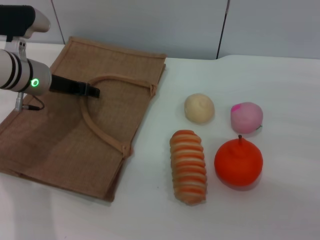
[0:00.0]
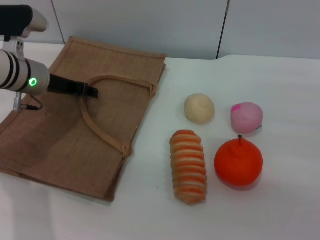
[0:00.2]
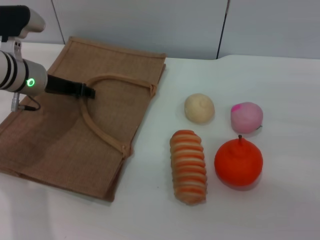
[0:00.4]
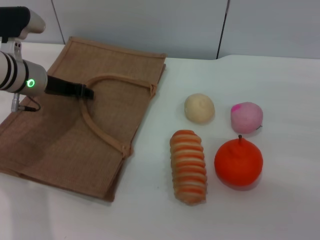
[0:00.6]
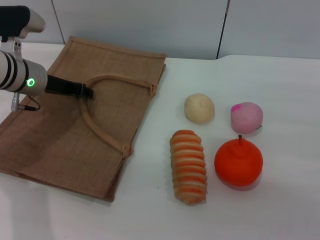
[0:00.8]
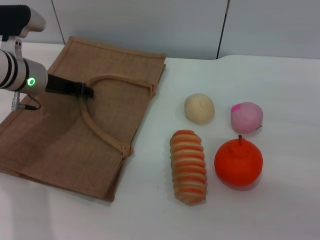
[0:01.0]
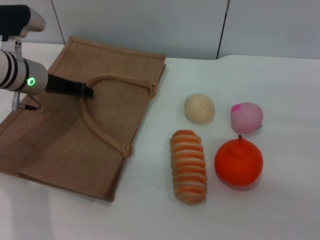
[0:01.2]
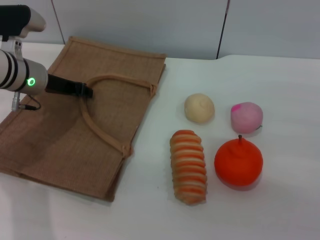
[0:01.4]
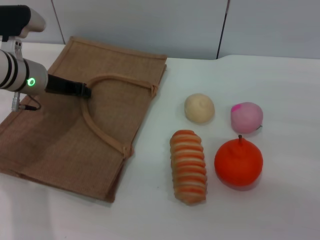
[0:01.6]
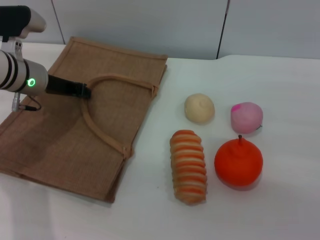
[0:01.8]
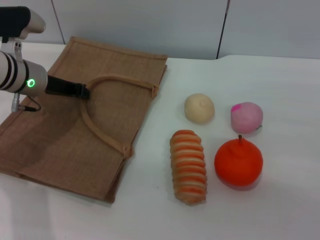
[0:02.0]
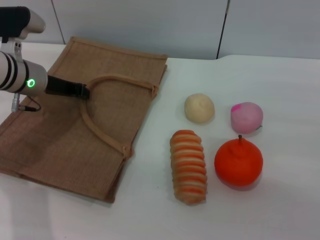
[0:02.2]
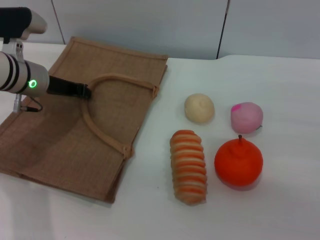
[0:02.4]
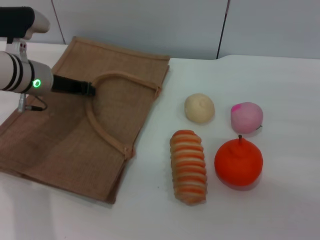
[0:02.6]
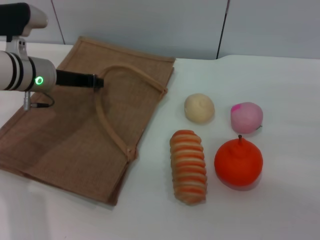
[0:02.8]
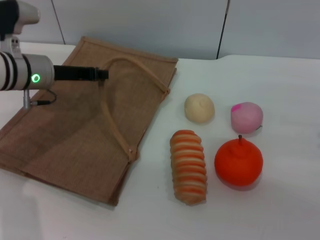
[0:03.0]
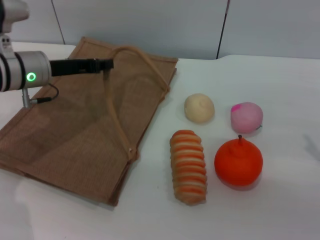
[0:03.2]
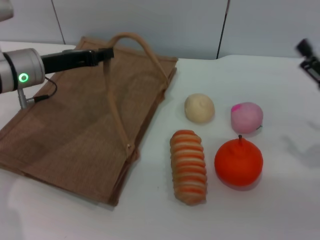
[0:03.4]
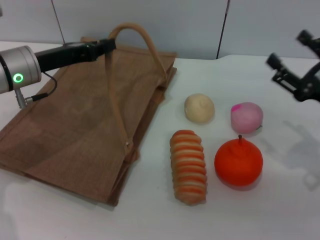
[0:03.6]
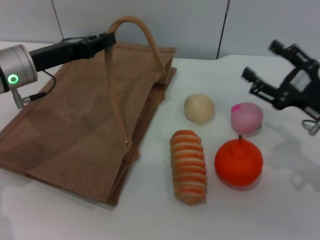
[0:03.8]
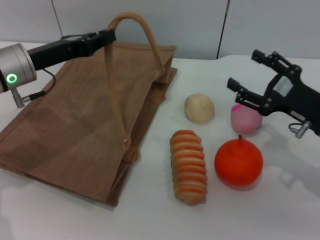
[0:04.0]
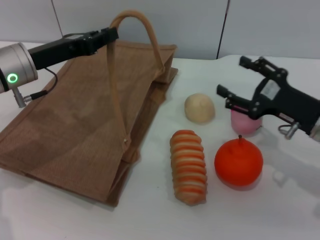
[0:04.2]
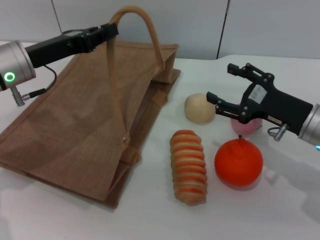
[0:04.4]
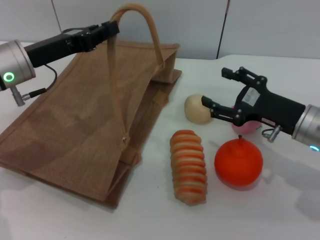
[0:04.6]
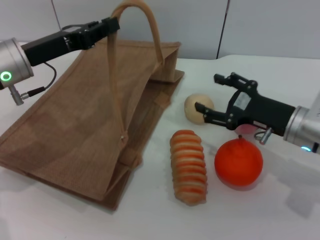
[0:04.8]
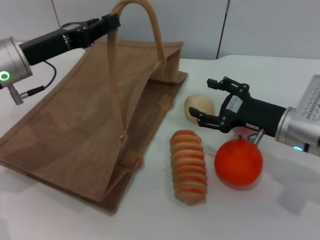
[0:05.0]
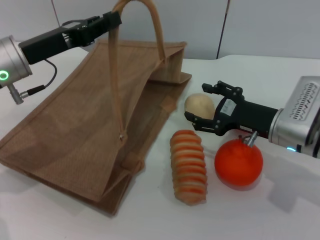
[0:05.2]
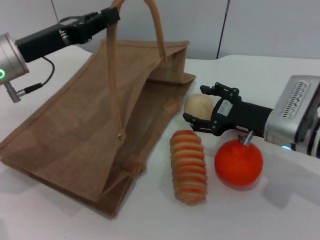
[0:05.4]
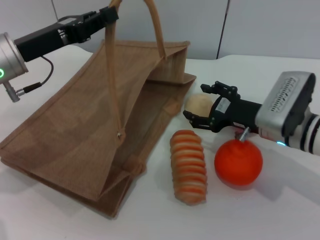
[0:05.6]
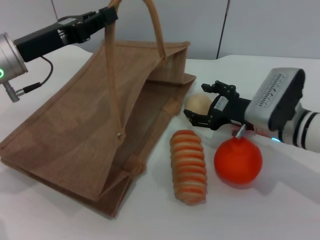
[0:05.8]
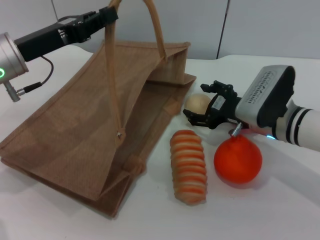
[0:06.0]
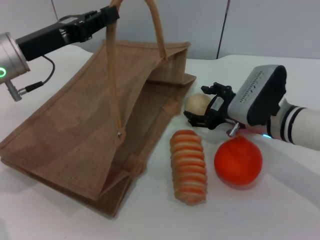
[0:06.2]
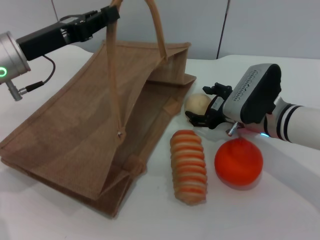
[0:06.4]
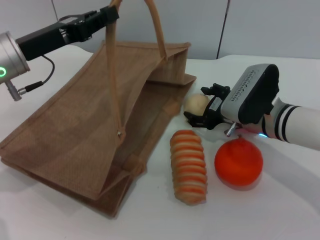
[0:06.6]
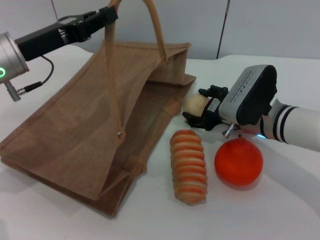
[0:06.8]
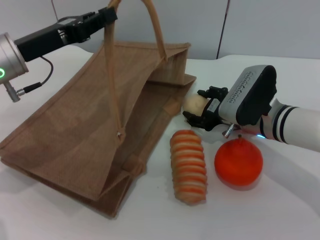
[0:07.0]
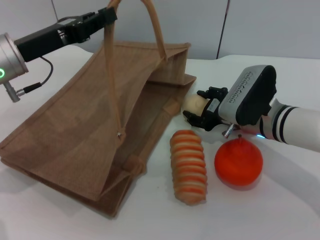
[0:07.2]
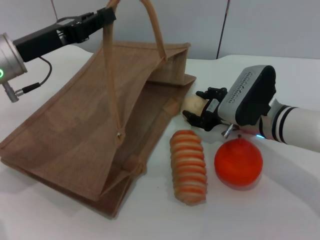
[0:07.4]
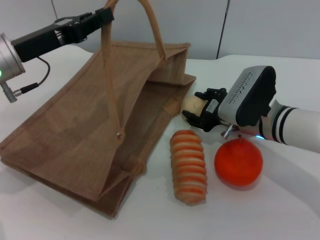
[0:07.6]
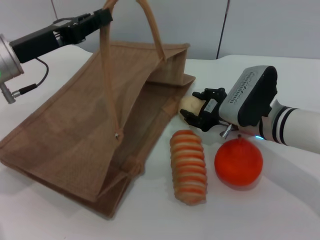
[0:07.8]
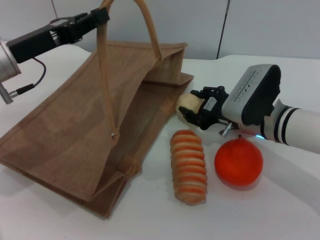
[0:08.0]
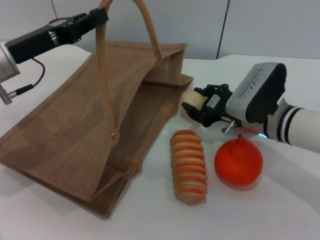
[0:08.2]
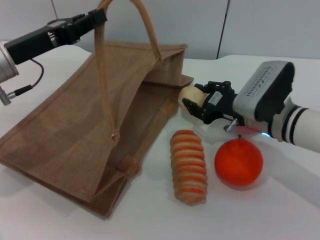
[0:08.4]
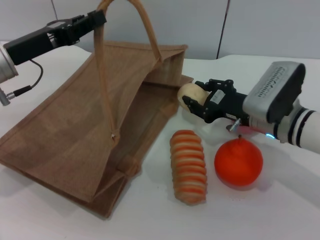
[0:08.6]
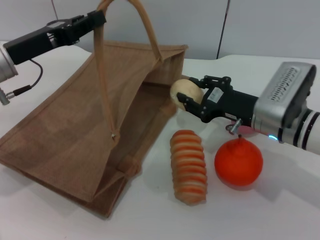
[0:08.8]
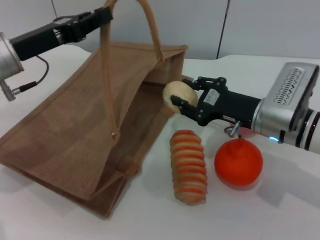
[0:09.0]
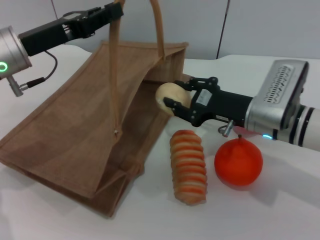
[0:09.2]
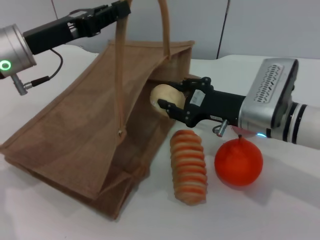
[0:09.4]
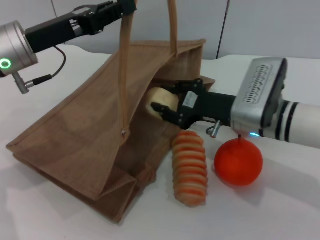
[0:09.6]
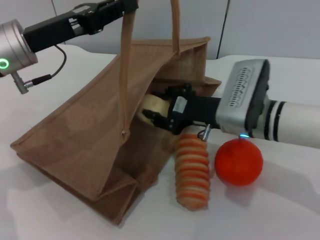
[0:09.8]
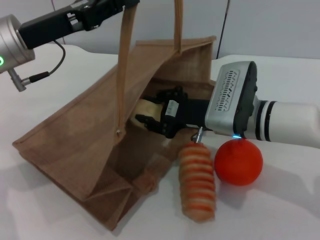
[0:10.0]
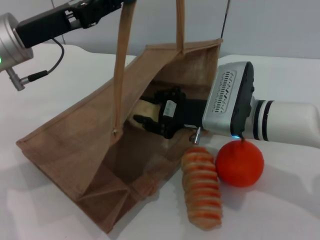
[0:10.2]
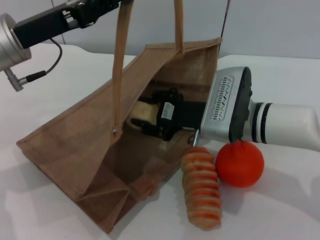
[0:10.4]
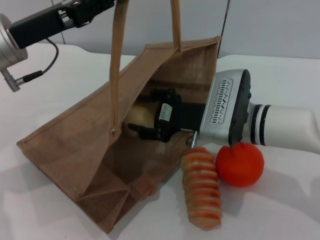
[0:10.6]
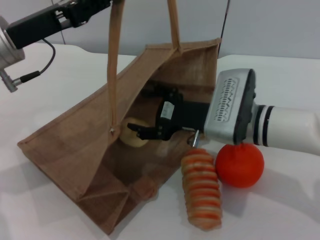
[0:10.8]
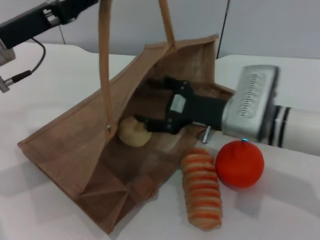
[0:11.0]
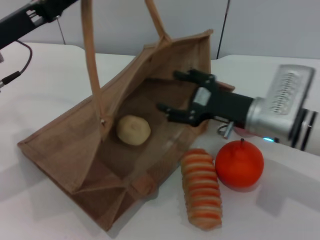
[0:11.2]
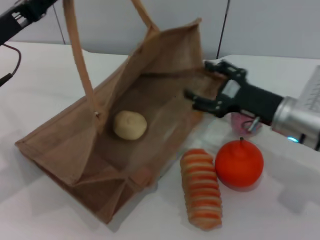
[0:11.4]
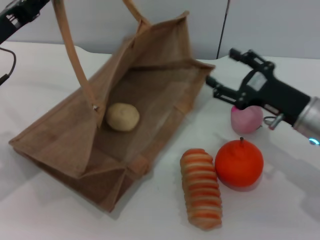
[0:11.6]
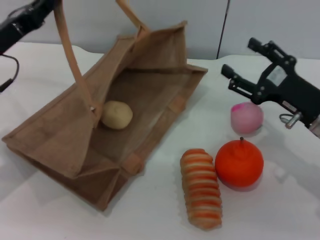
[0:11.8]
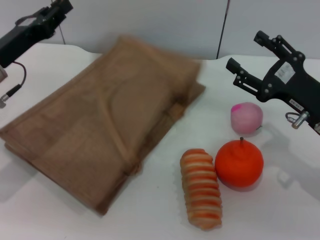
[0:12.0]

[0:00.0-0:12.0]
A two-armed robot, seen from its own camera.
Task of the whole recording: pick up the egg yolk pastry from the table and place it in the brown handbag.
Step, 0:00.0 to 0:03.2: Lift the woven bag with the left gripper to open it.
Step, 0:03.4 to 0:08.4: Pick up the egg yolk pastry with the right gripper.
Step, 0:08.8 to 0:11.0: Place the egg yolk pastry into the woven bag with the right gripper.
0:00.0 to 0:01.6: The left gripper closes its fingers.
0:01.6 to 0:03.0: The grippers make only small movements.
0:03.0 to 0:04.4: The left gripper shifts by approximately 5 cm. The right gripper is displaced to the left and forward by some 10 cm.
0:04.4 to 0:06.0: The right gripper shifts approximately 5 cm to the left.
0:06.0 to 0:07.6: The right gripper closes up.
0:07.6 to 0:09.0: The right gripper closes up.
0:09.0 to 0:10.4: The right gripper shifts about 5 cm to the left.
0:10.4 to 0:12.0: The left gripper moves downward, some 5 cm. Meanwhile the right gripper is displaced to the right by roughly 15 cm, and opens its fingers.

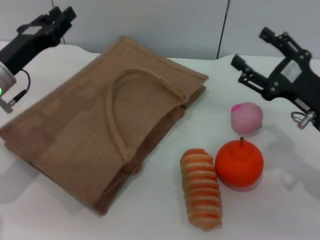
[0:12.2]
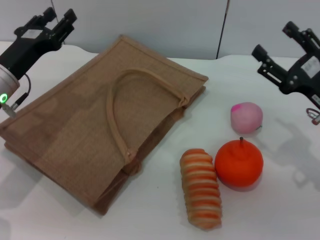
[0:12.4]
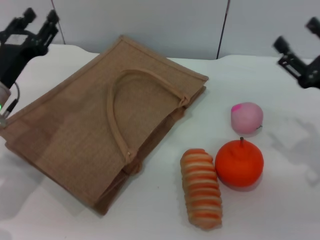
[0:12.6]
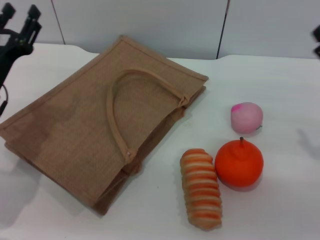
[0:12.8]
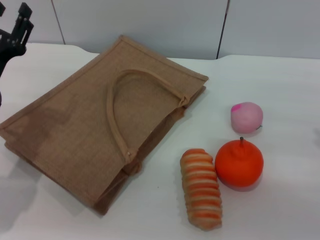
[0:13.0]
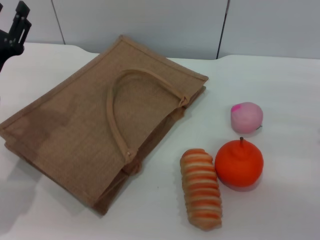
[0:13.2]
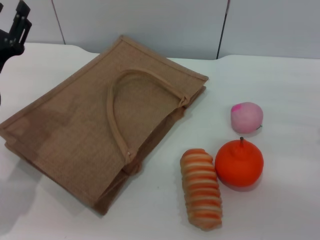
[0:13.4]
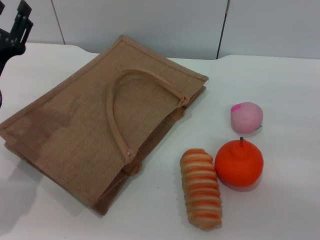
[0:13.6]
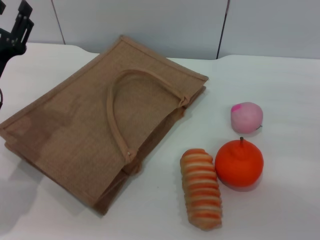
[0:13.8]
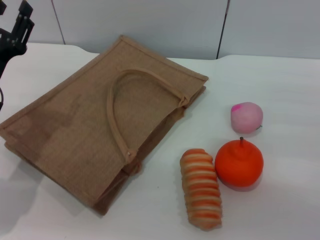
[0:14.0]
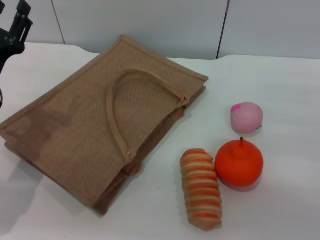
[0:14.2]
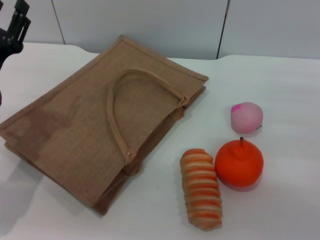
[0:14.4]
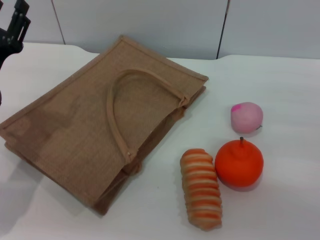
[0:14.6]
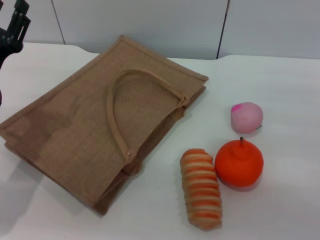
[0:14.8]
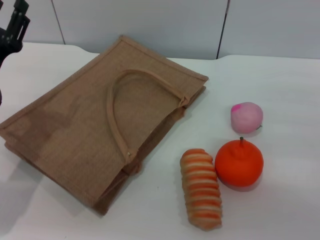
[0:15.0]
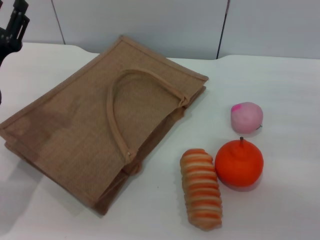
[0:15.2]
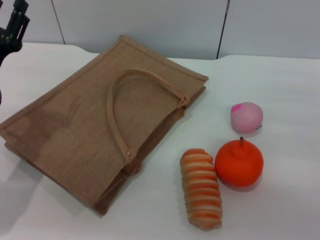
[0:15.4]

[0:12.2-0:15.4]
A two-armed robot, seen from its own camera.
Task of the whole recording: pick up the egg yolk pastry from the table and place it in the brown handbag.
0:12.2 to 0:13.8: The left gripper shifts approximately 5 cm backward, and opens, while the right gripper is displaced to the right by roughly 10 cm.
0:13.8 to 0:15.4: Both grippers stay about where they are.

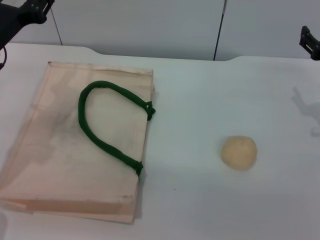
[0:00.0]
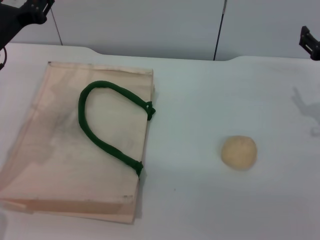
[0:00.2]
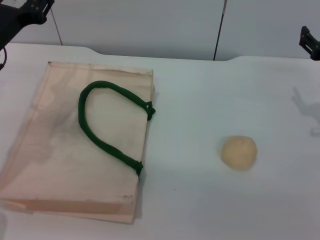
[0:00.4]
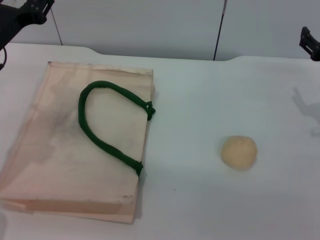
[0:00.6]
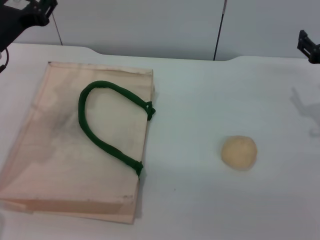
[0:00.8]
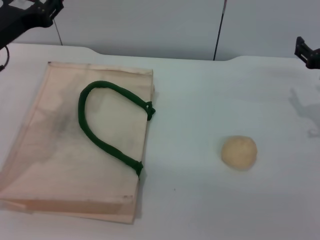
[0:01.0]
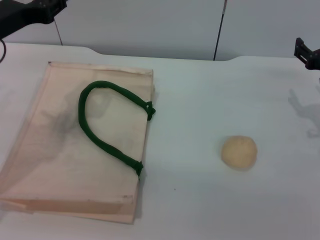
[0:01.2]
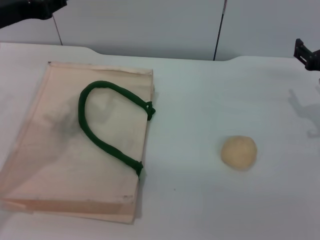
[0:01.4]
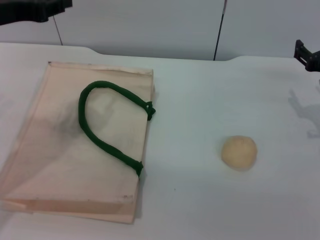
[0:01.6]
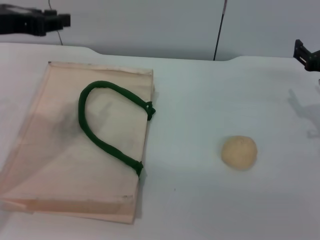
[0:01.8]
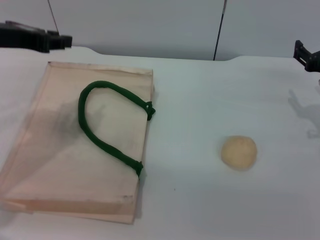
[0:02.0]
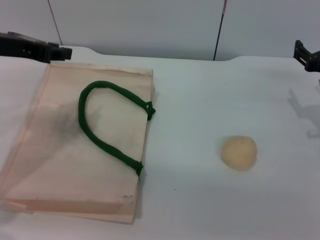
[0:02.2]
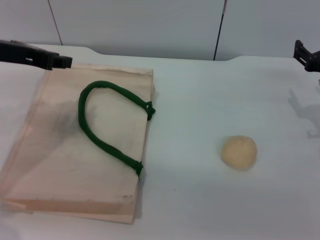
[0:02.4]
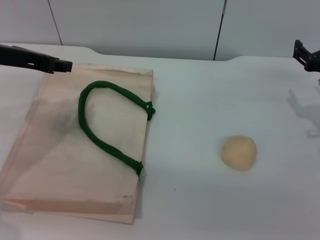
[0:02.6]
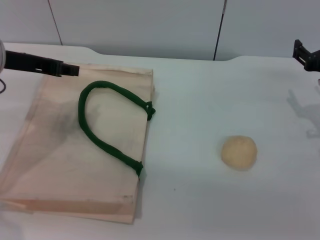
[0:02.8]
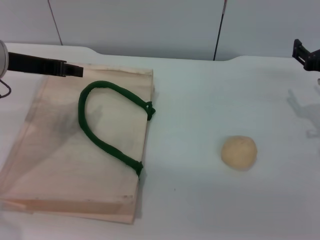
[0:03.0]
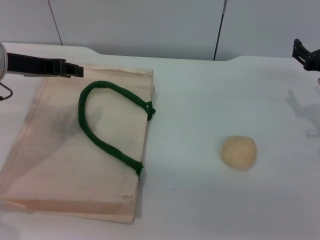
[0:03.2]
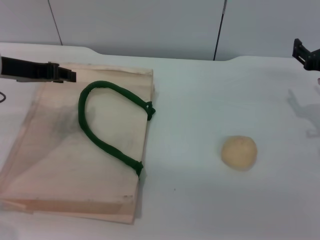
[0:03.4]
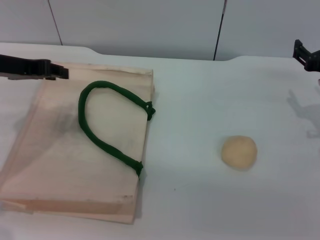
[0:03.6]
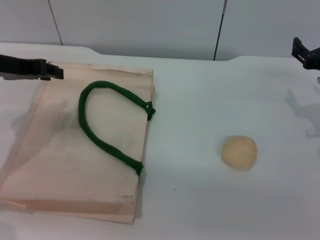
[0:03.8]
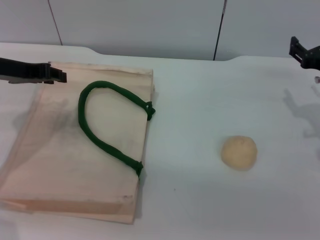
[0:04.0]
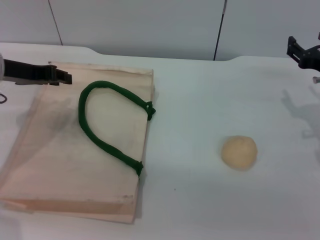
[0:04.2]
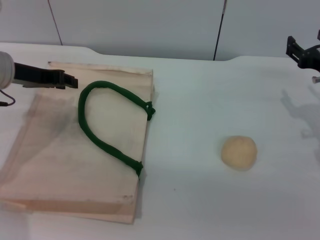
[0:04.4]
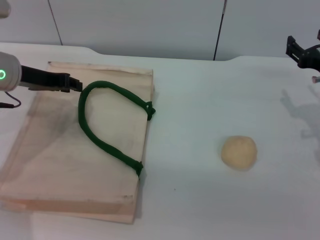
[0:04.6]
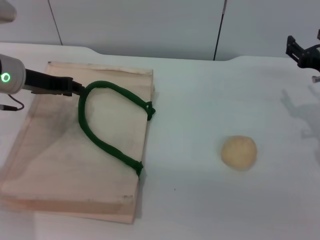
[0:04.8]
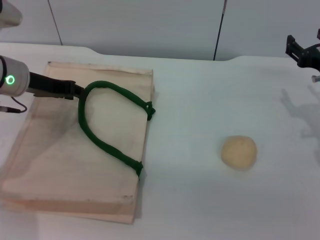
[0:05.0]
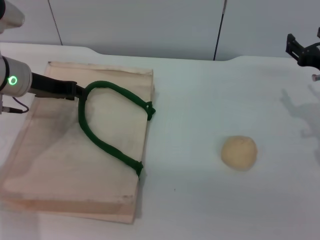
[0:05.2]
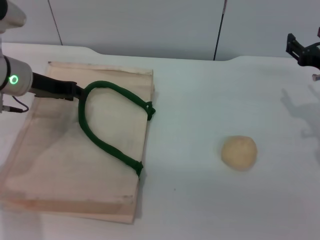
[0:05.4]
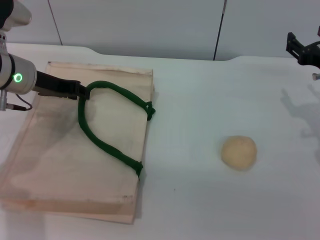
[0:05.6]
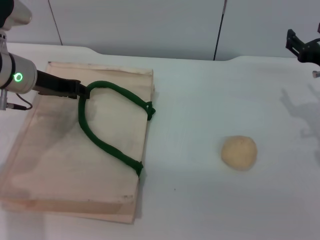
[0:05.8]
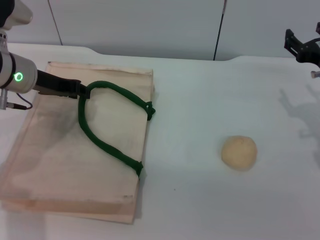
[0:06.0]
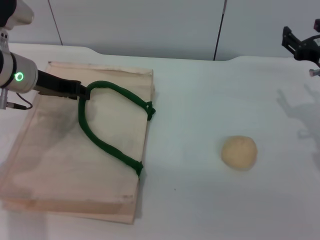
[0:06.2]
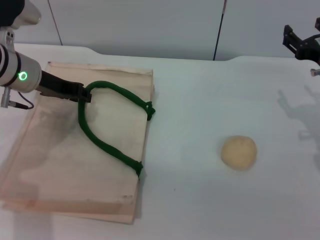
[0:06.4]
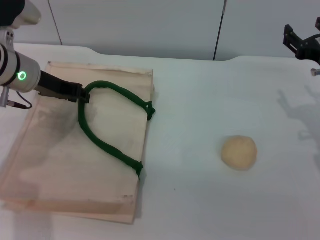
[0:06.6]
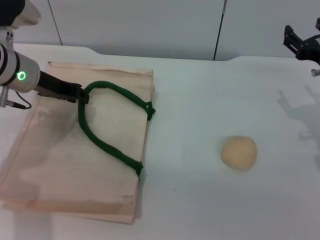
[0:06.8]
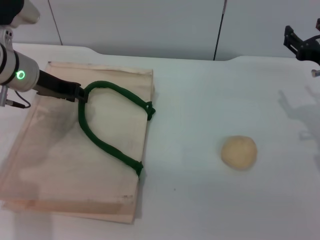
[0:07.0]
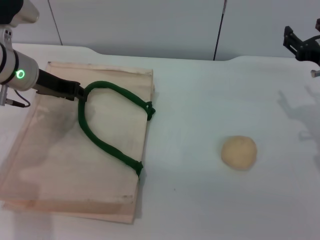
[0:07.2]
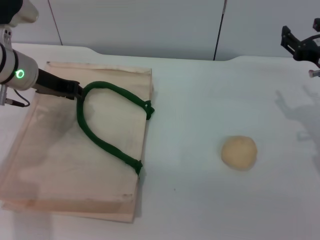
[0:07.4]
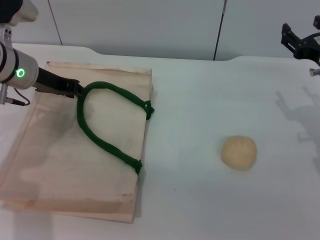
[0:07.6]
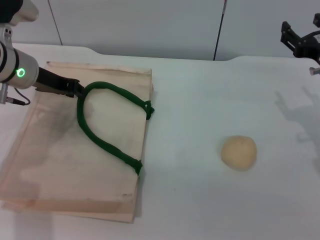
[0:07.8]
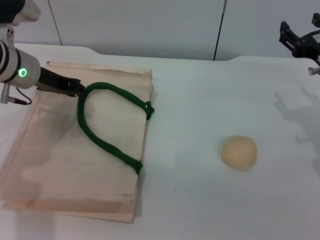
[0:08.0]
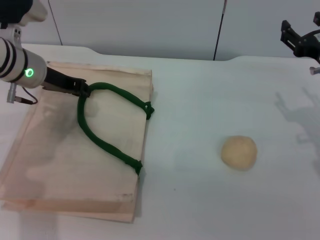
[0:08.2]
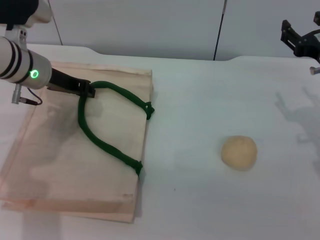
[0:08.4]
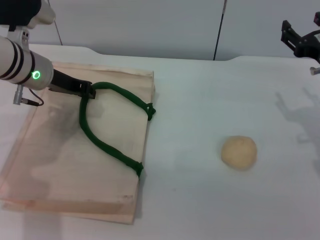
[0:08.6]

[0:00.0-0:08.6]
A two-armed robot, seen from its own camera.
Task of the whole recording: pick up the egg yolk pastry from the table and place it in the white handbag.
0:00.0 to 0:01.4: The left gripper travels upward by some 5 cm.
0:02.8 to 0:04.4: The grippers make only small movements.
0:04.4 to 0:07.2: There are only small adjustments of the grippers.
0:07.2 to 0:08.6: The left gripper closes.
